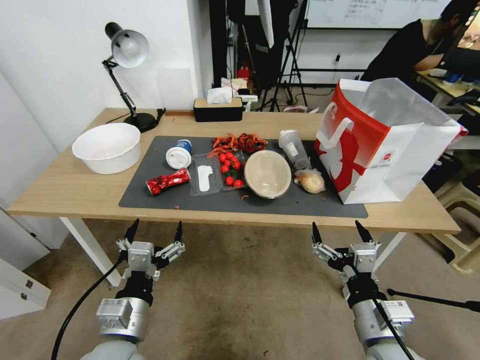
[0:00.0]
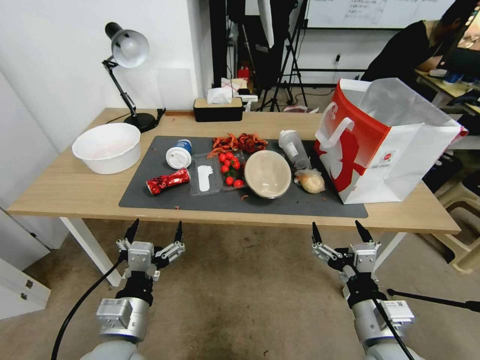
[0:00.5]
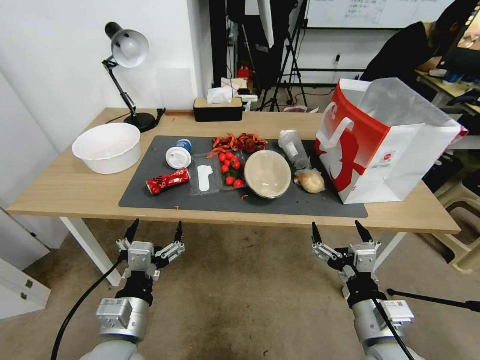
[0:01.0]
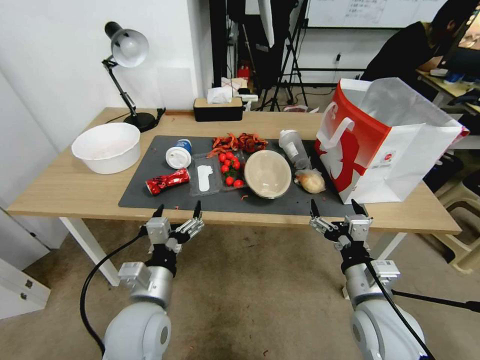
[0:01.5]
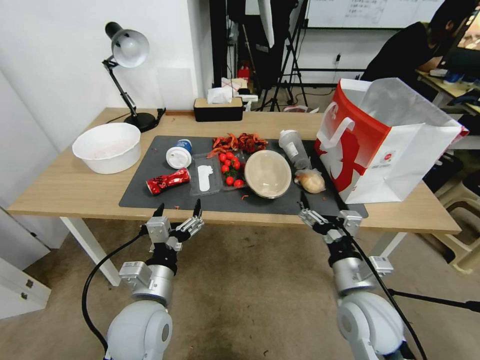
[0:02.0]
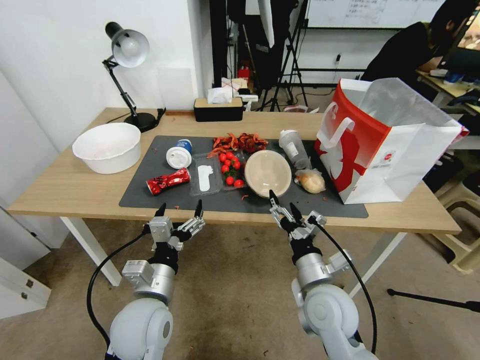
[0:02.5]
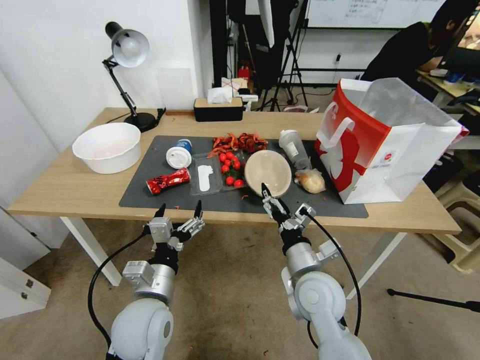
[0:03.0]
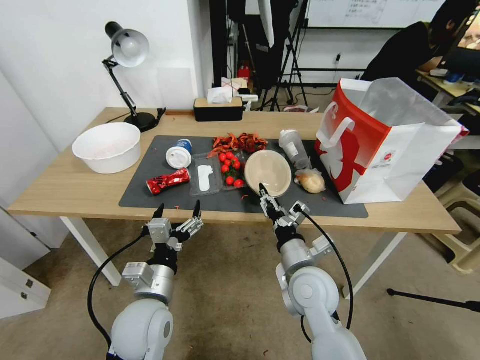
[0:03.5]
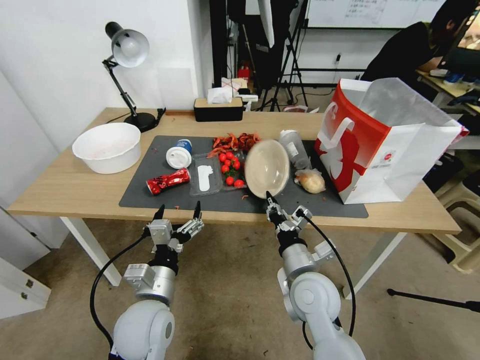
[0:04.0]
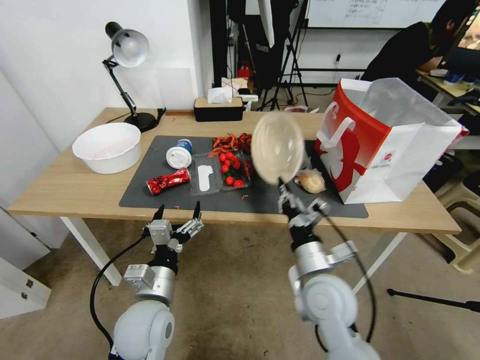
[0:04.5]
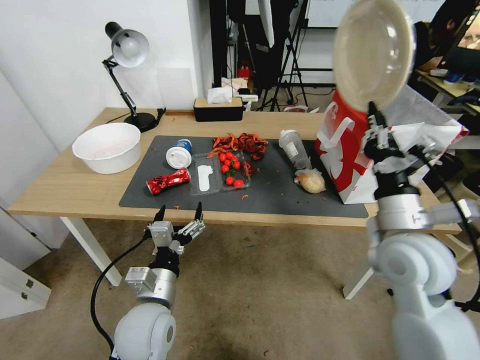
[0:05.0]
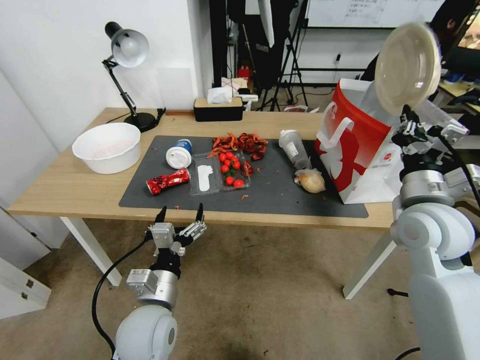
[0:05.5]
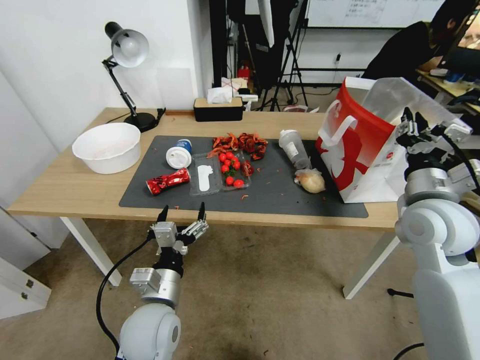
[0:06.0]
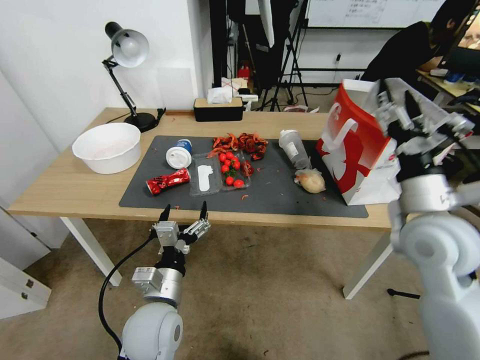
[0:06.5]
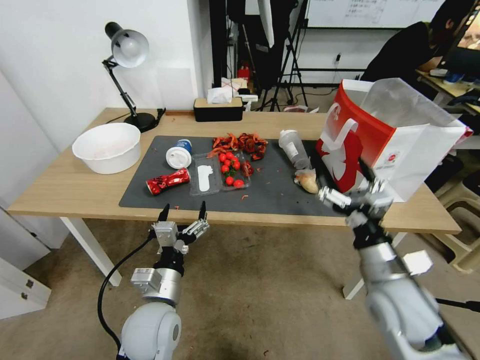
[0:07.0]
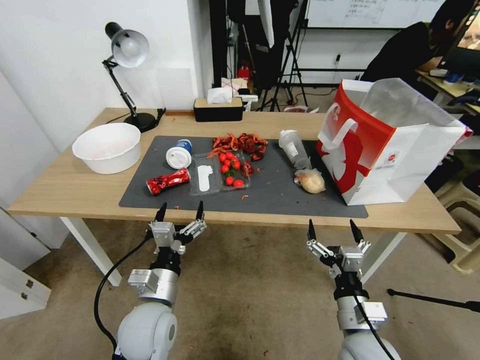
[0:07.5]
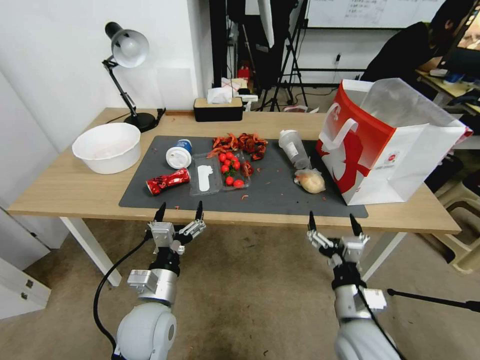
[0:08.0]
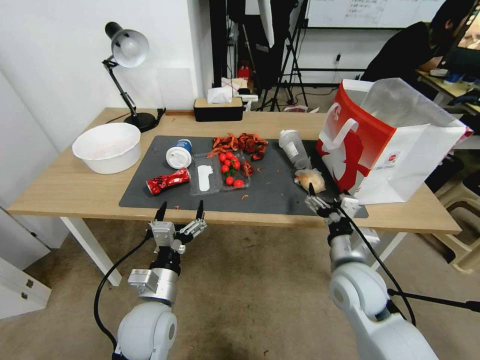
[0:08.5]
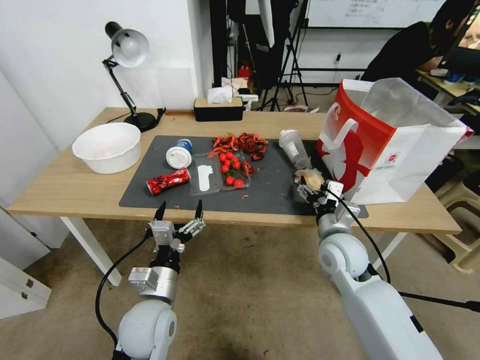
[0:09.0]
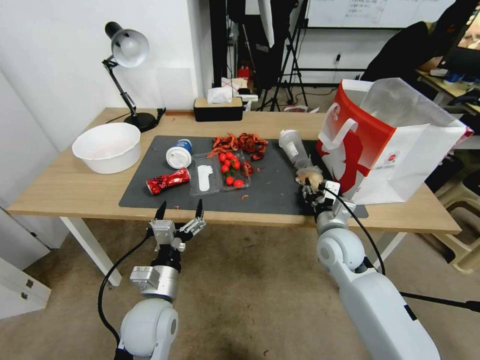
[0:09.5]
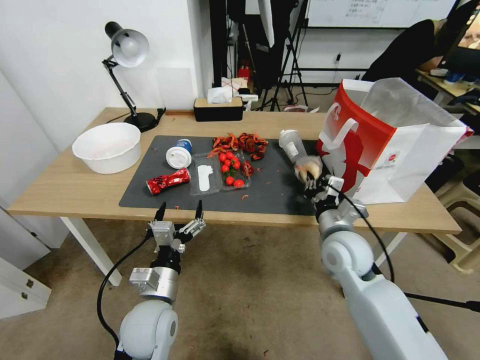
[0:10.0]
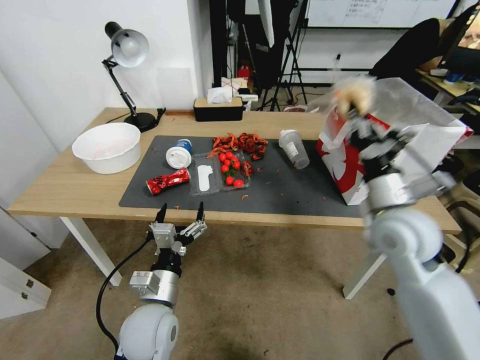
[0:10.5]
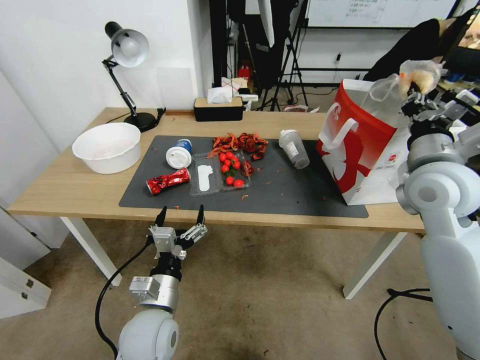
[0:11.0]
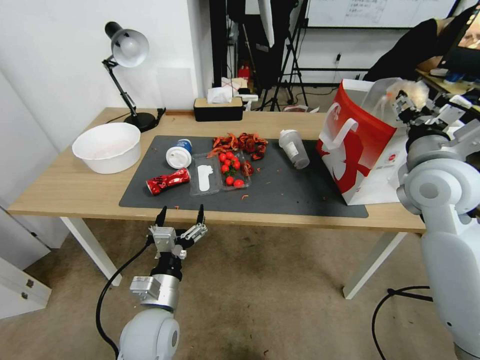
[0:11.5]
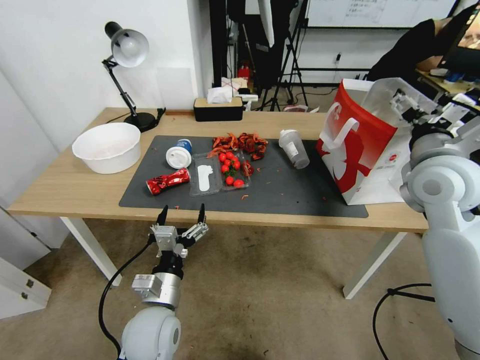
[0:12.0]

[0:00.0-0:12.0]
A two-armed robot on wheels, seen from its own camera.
0:02.0 to 0:04.0: The right gripper heads to the left, covering approximately 10 cm, and closes up.
0:04.0 to 0:06.0: The right gripper travels to the right and upward by some 25 cm.
0:06.0 to 0:08.0: The right gripper goes roughly 25 cm downward, backward and to the left, and opens its fingers.
0:08.0 to 0:10.0: The right gripper is displaced forward by about 15 cm, and closes.
0:10.0 to 0:12.0: The right gripper goes roughly 20 cm upward and to the right, and opens its fingers.

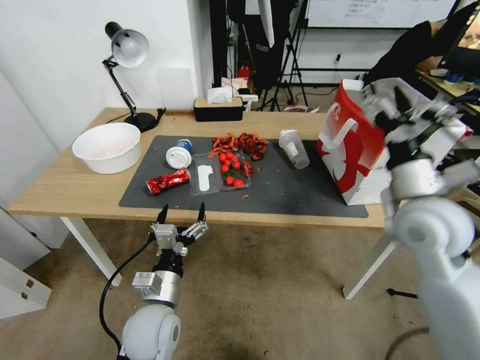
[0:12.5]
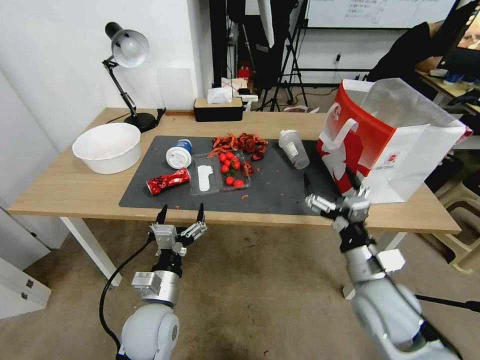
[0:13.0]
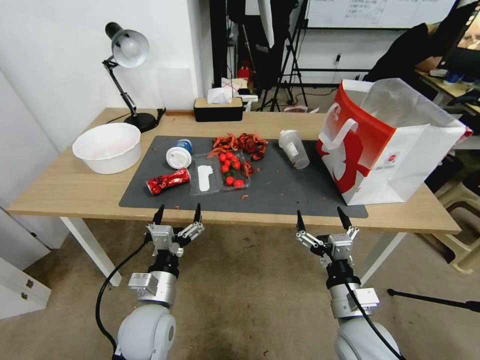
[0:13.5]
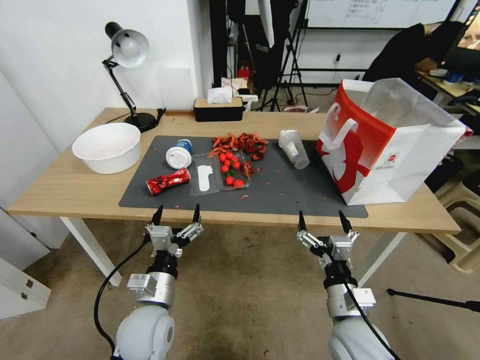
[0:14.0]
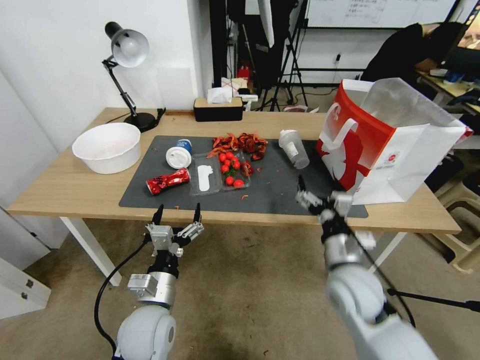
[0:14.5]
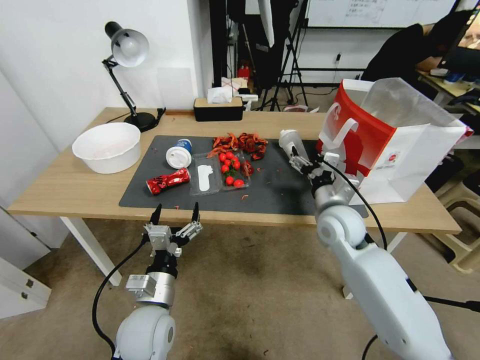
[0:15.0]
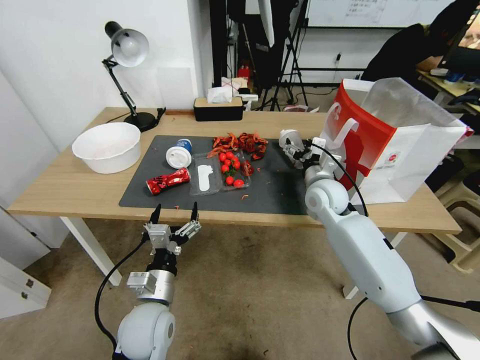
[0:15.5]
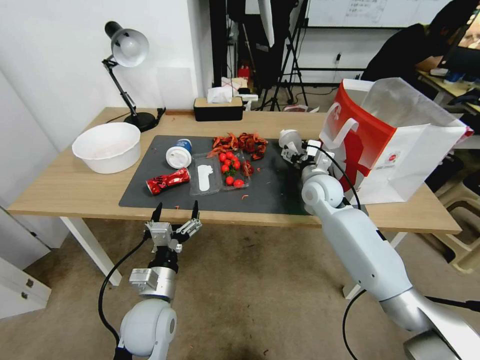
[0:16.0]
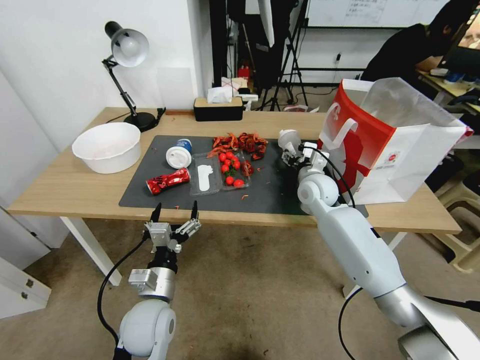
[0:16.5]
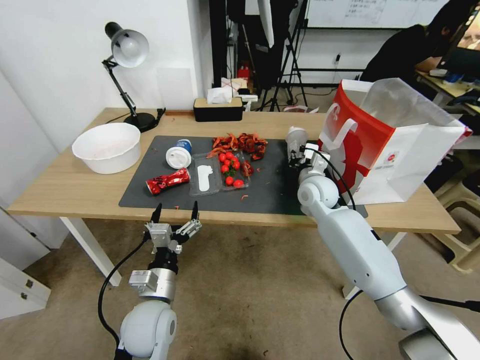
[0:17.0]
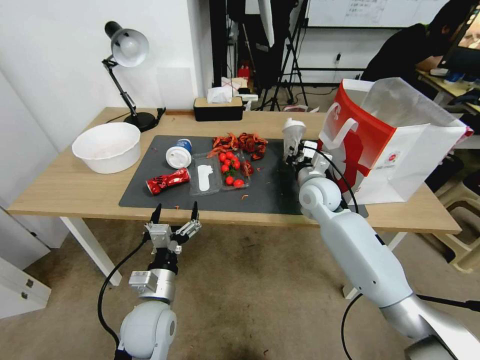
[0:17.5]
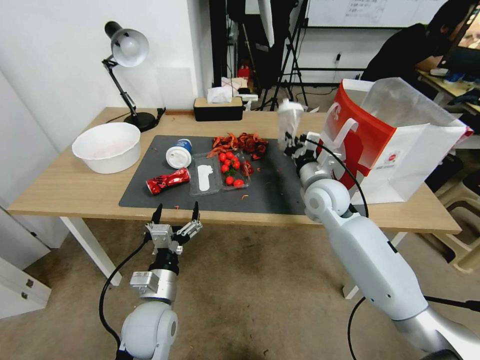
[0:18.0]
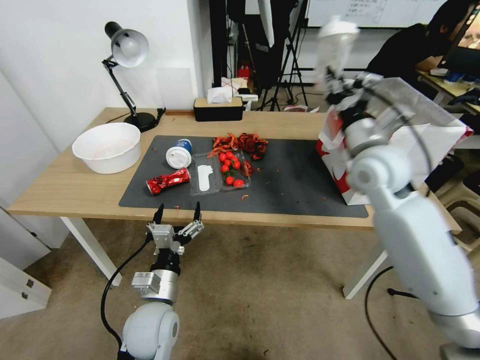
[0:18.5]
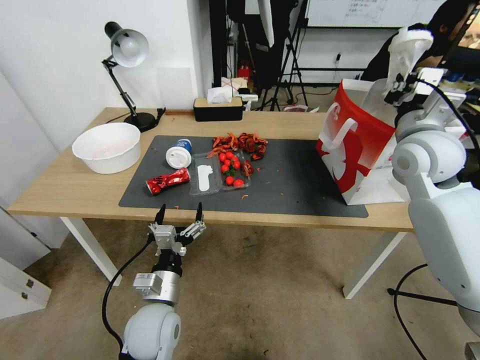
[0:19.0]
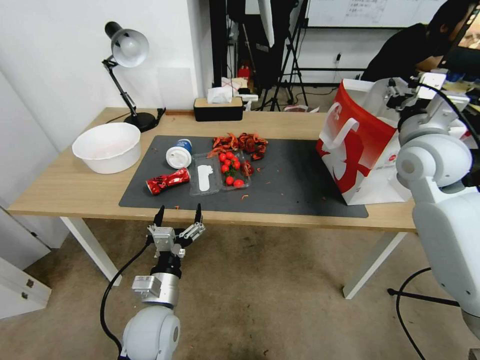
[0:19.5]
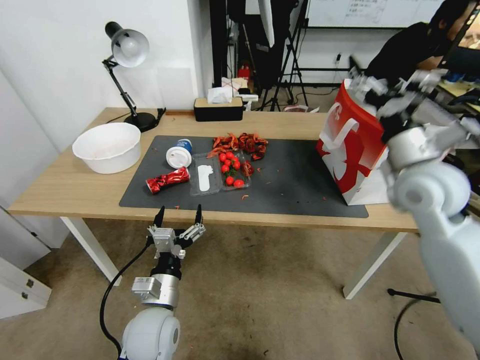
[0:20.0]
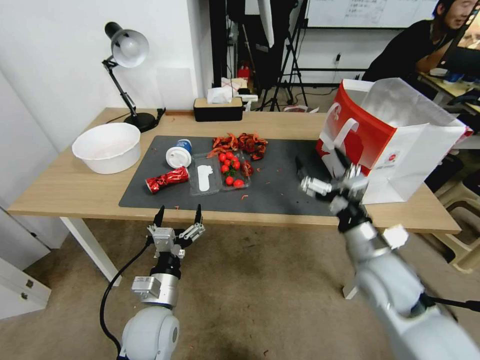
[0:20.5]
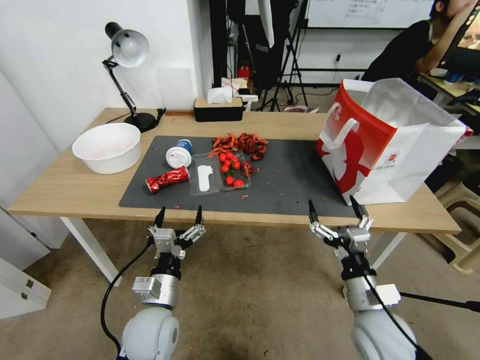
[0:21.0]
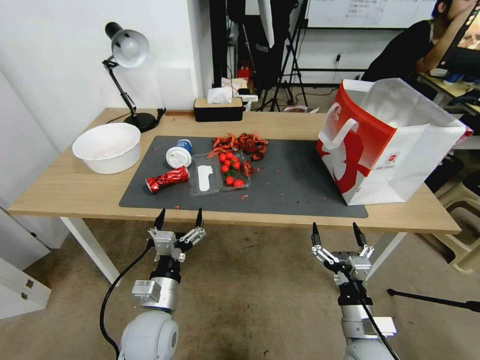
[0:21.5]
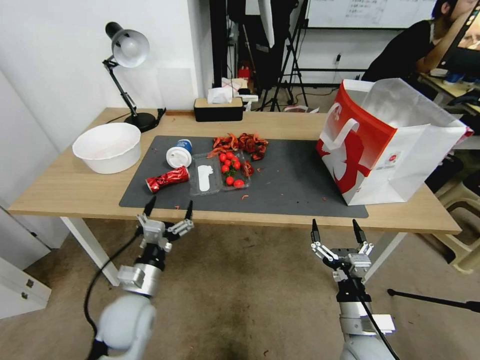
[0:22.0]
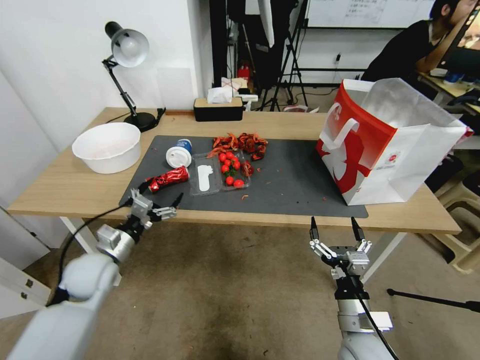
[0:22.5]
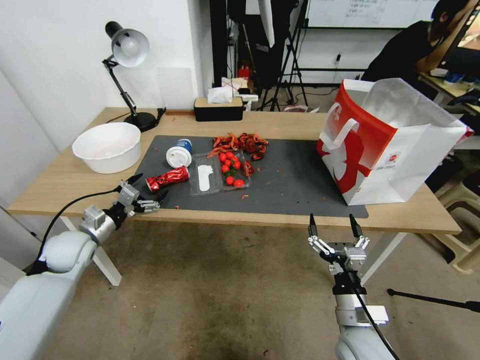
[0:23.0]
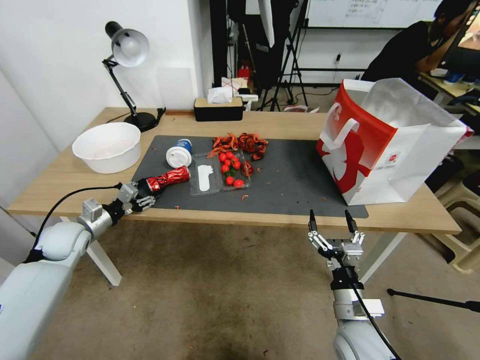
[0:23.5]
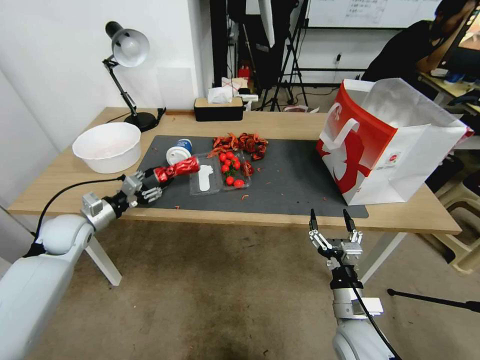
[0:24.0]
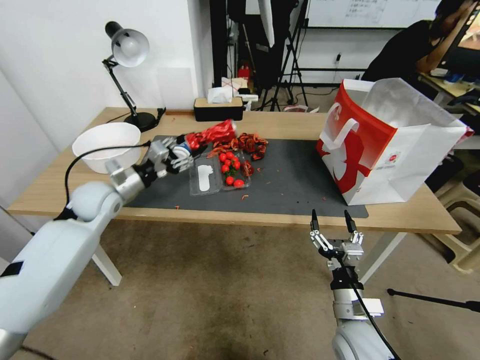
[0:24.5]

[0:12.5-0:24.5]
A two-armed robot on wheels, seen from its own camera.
0:12.5 to 0:14.5: The right gripper travels downward and to the left by roughly 20 cm.
0:14.5 to 0:16.5: The right gripper moves forward, about 25 cm.
0:16.5 to 0:18.5: The right gripper travels upward and backward by approximately 15 cm, and closes up.
0:18.5 to 0:20.5: The right gripper moves backward and downward, approximately 20 cm, and opens.
0:20.5 to 0:22.5: The left gripper moves to the left and forward, some 20 cm; the right gripper is displaced downward and backward by about 15 cm.
0:22.5 to 0:24.5: The left gripper is displaced forward and upward by approximately 15 cm, and closes its fingers.

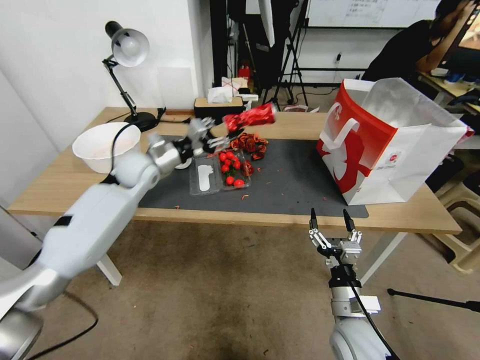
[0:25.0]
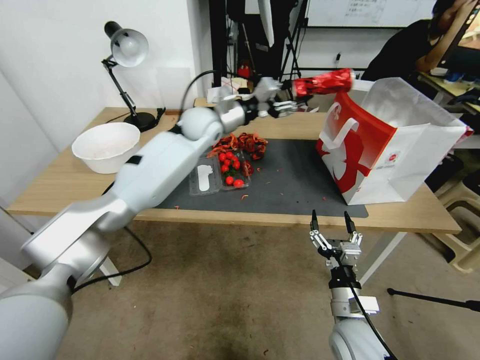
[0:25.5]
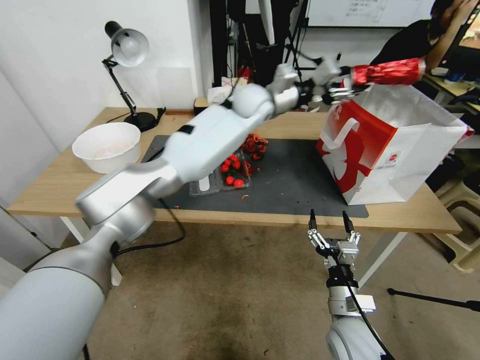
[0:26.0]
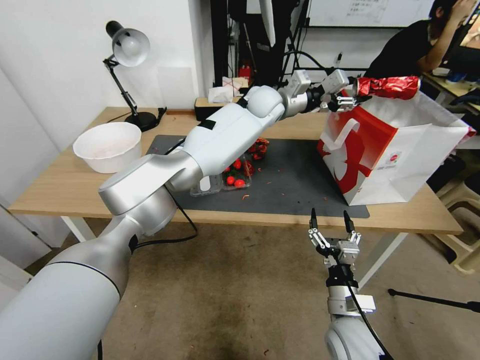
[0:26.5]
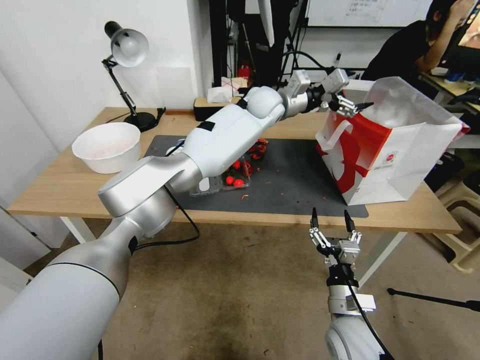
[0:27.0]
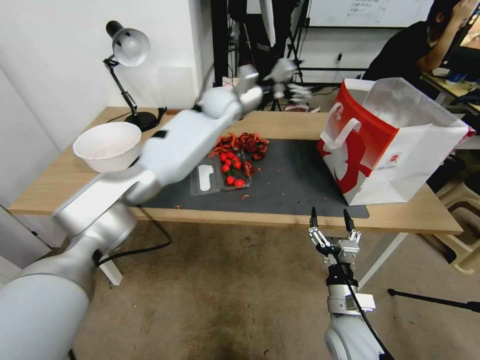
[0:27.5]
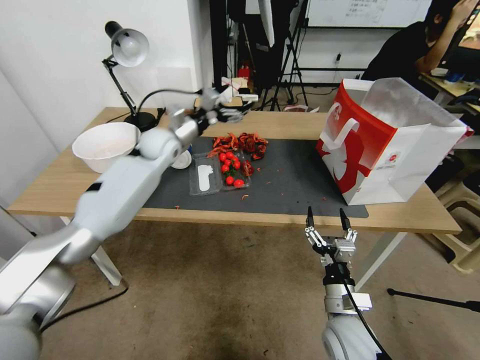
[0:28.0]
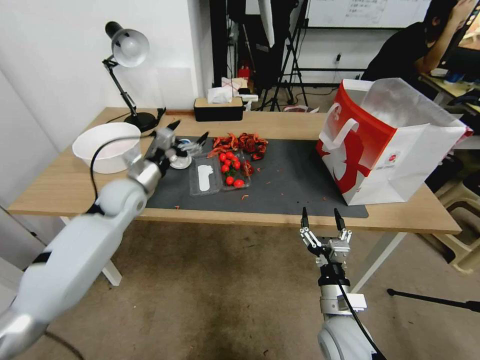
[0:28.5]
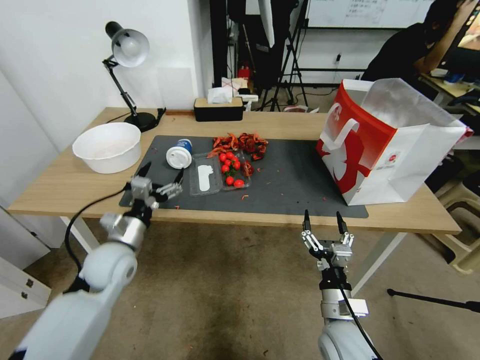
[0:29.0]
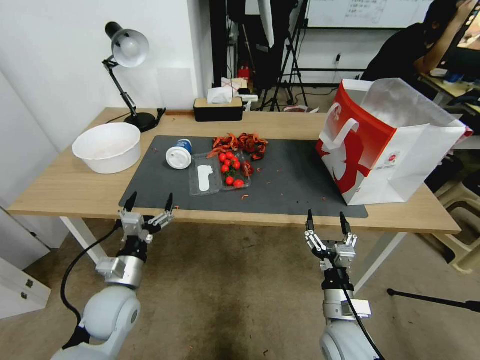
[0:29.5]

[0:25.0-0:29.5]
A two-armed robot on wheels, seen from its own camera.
0:25.0 to 0:27.0: The left gripper heads to the right, covering some 30 cm, and opens up.
0:27.0 to 0:29.5: The left gripper is displaced backward, to the left and downward by roughly 50 cm.
